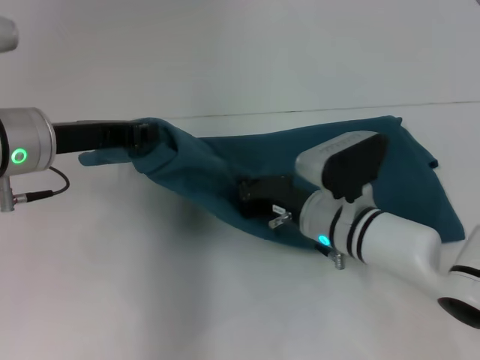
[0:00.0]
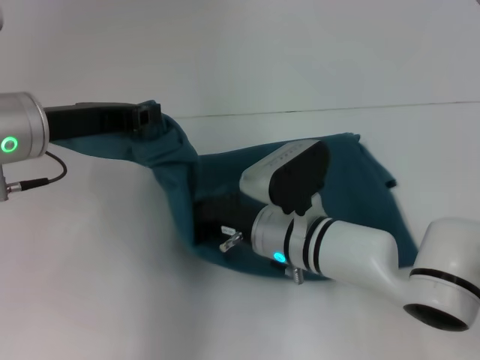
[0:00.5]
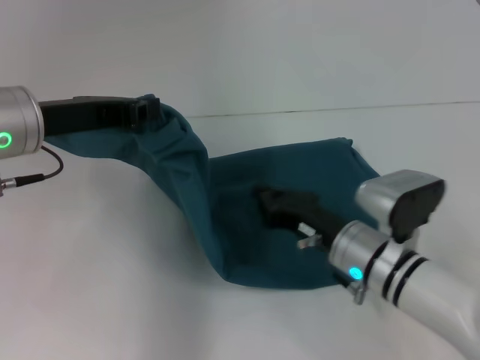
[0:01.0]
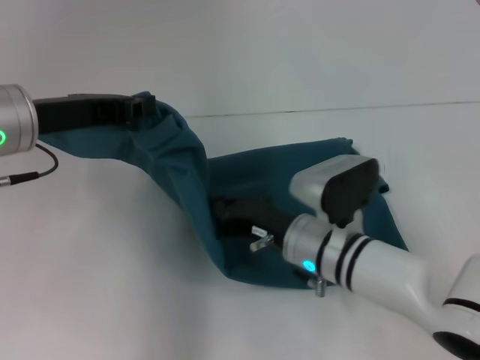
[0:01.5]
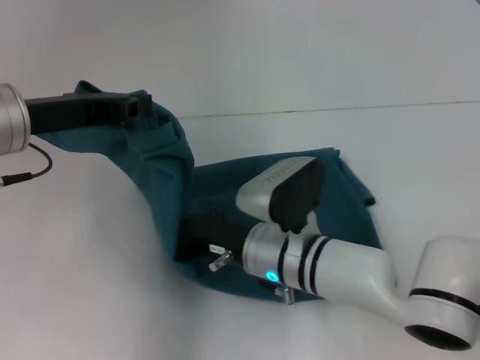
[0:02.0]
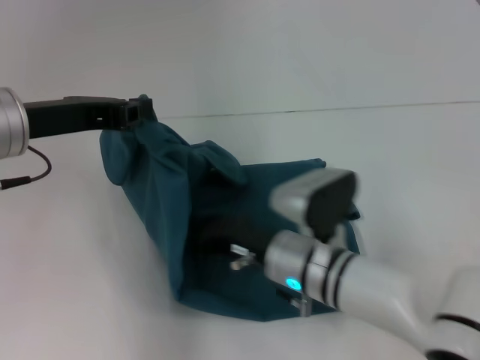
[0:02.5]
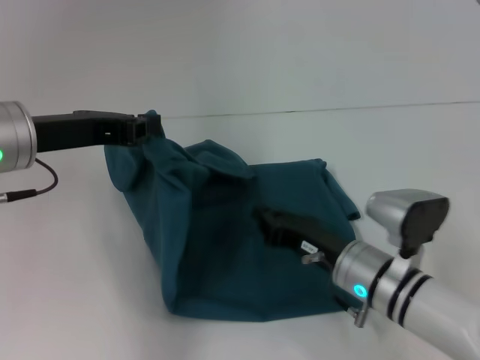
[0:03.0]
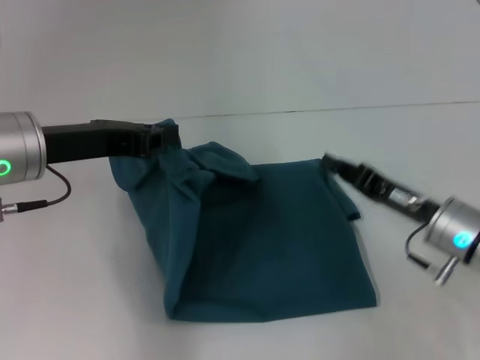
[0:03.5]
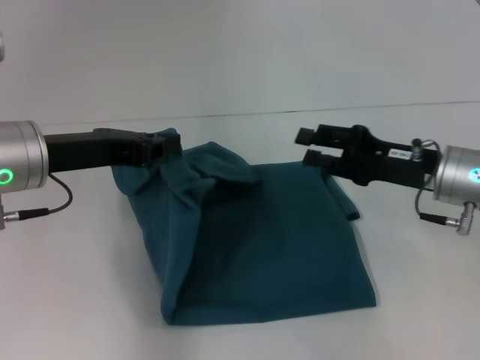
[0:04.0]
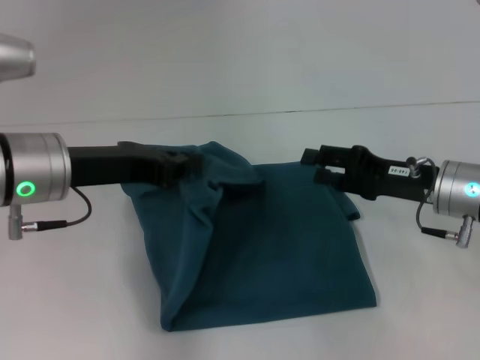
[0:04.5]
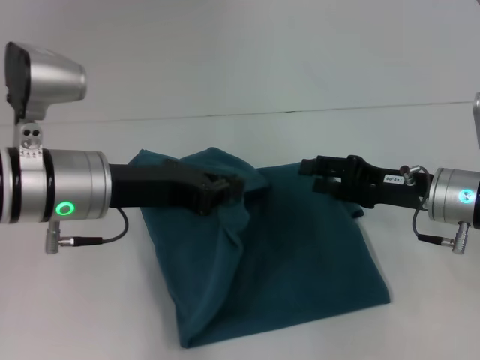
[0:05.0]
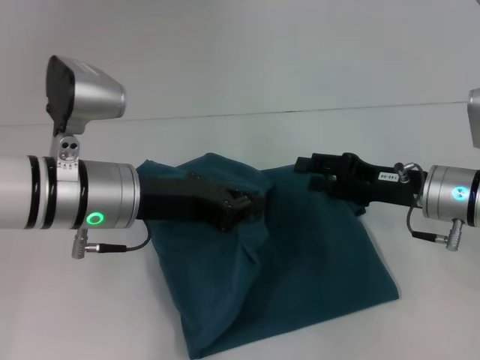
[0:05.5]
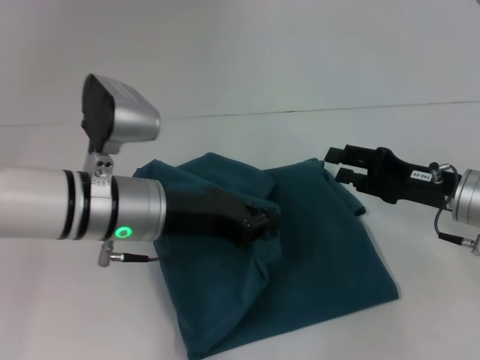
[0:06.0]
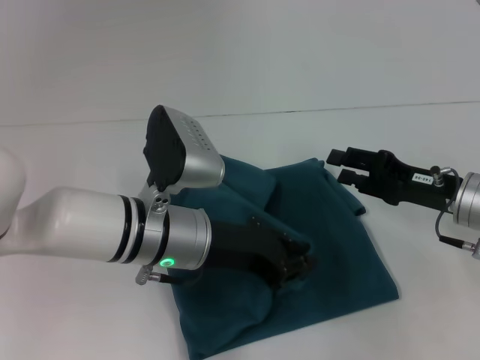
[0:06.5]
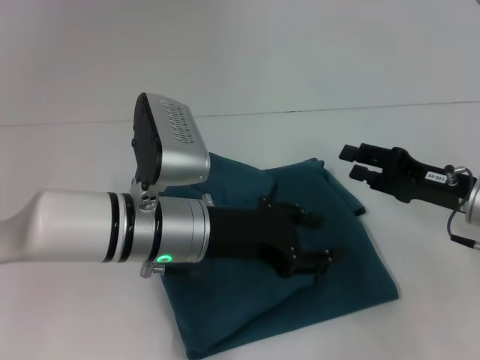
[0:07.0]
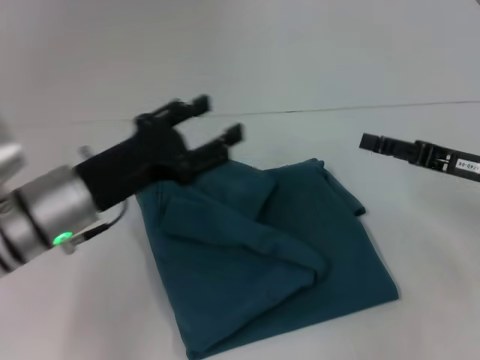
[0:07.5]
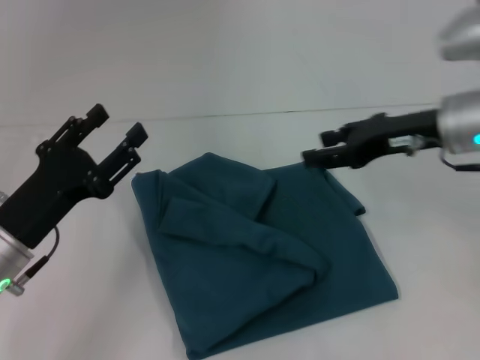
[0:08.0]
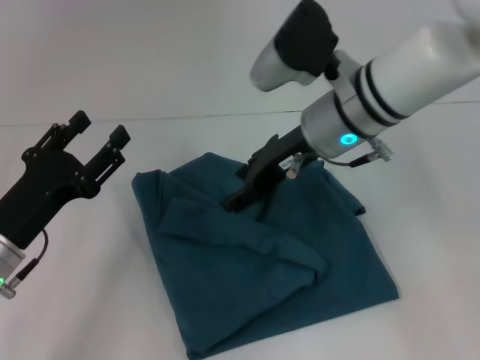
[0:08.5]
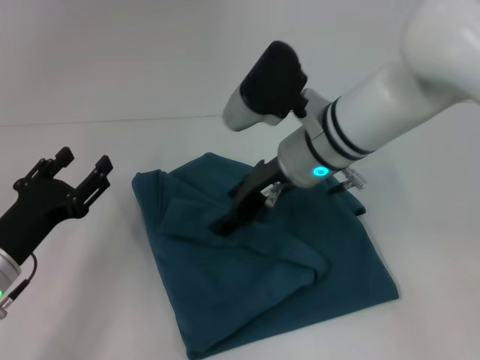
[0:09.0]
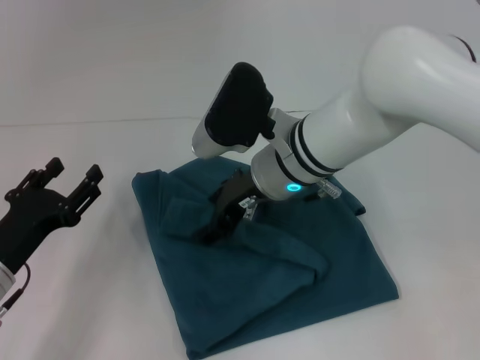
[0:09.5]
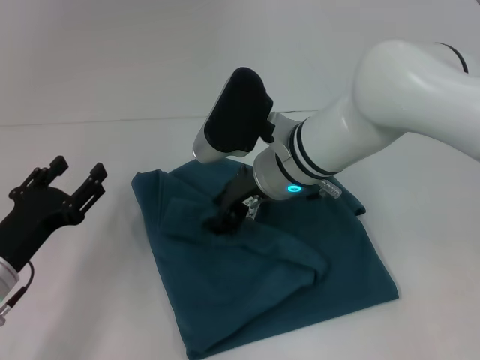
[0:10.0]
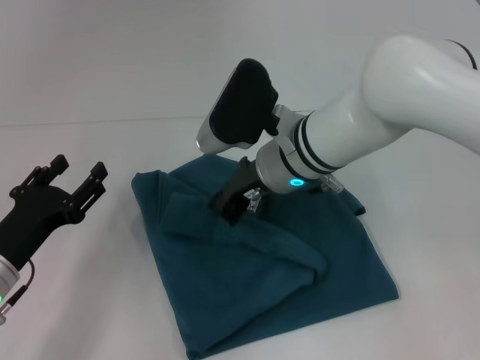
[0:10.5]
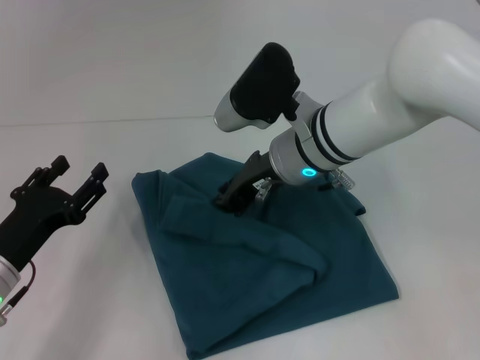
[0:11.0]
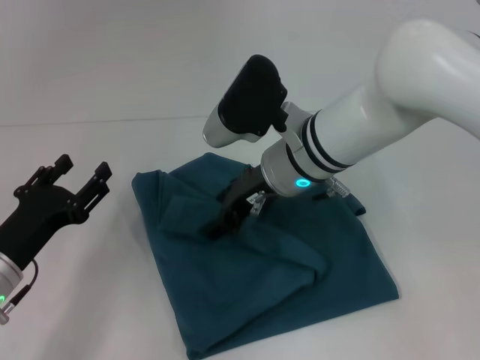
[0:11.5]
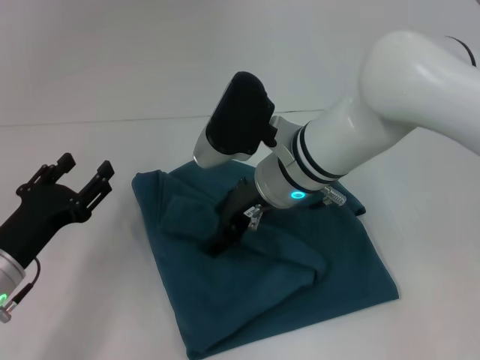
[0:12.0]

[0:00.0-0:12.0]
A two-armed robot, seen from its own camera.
Step, 0:00.0 to 0:06.5: Fold the clothes to the left.
0:00.0 to 0:02.0: The right gripper swings left and right, some 10 cm each way, with 2 reversals.
0:02.0 to 0:04.0: The right gripper shifts approximately 20 cm to the right.
0:04.0 to 0:06.0: The left gripper moves to the right and downward, some 10 cm.
0:06.0 to 0:08.0: The right gripper heads upward, covering some 10 cm. Meanwhile the left gripper goes approximately 15 cm to the left, backward and downward, and opens.
0:08.0 to 0:10.0: The right gripper shifts approximately 20 cm to the left.
0:10.0 to 0:12.0: The right gripper closes and opens again.

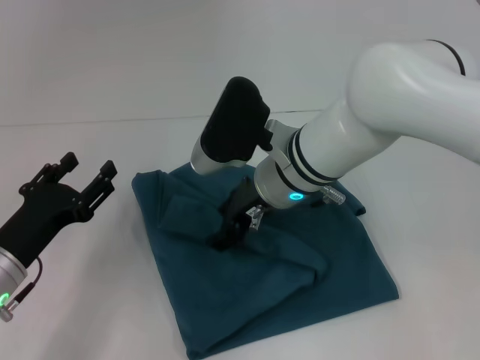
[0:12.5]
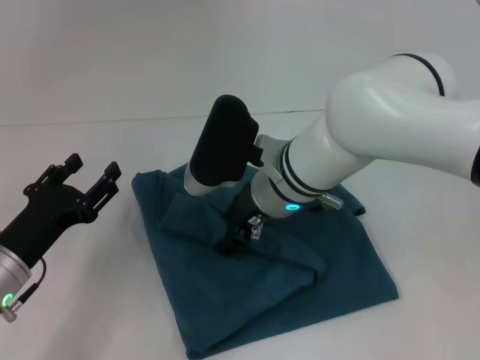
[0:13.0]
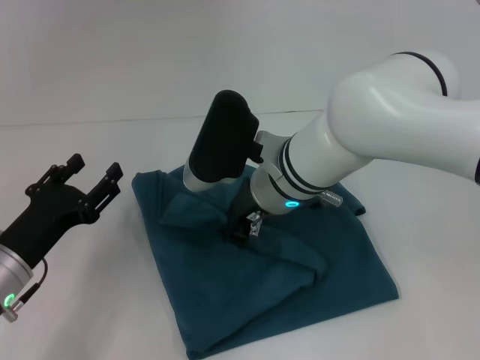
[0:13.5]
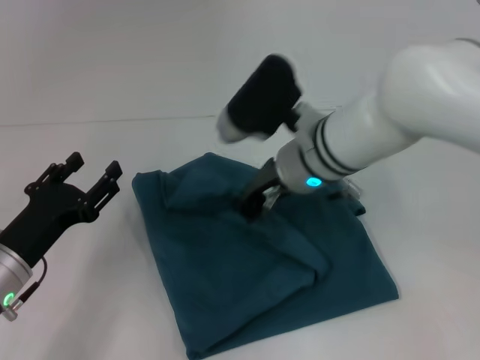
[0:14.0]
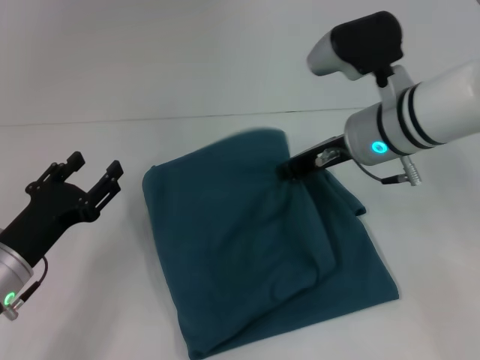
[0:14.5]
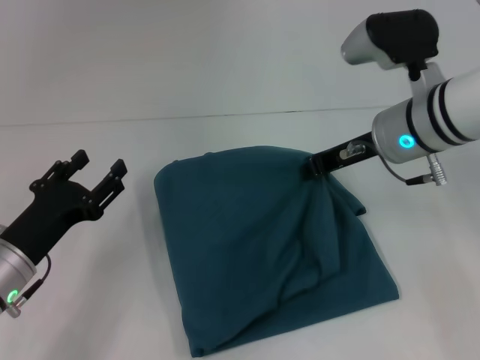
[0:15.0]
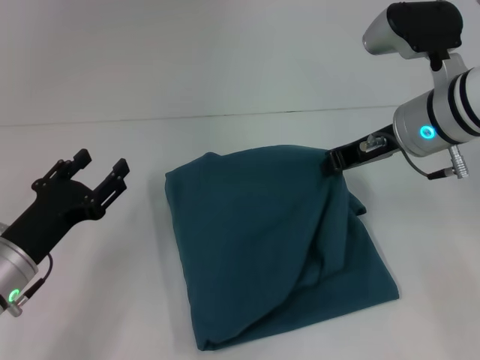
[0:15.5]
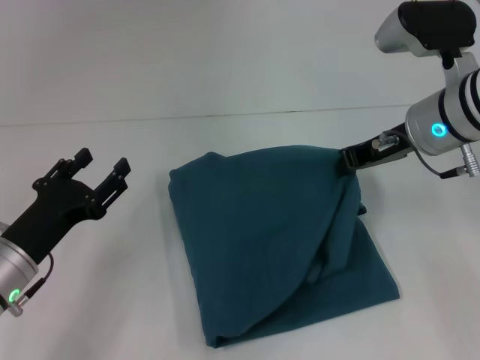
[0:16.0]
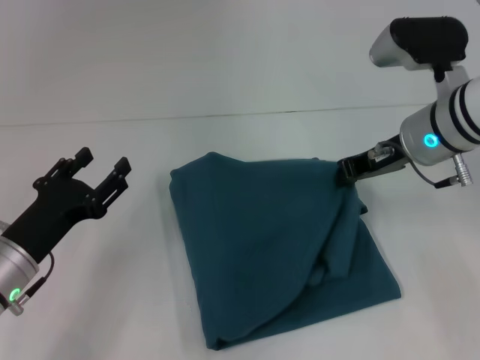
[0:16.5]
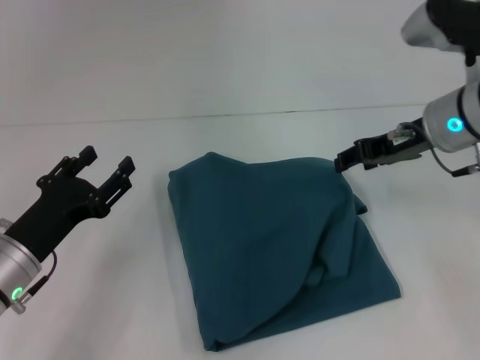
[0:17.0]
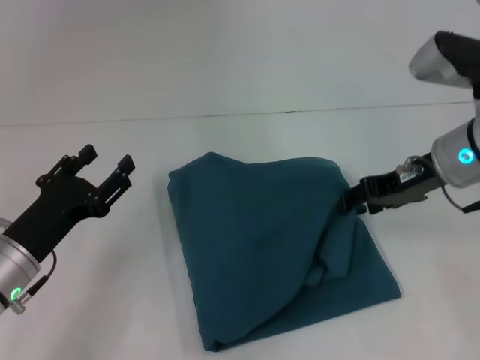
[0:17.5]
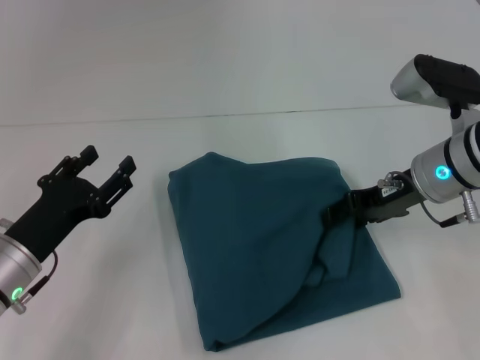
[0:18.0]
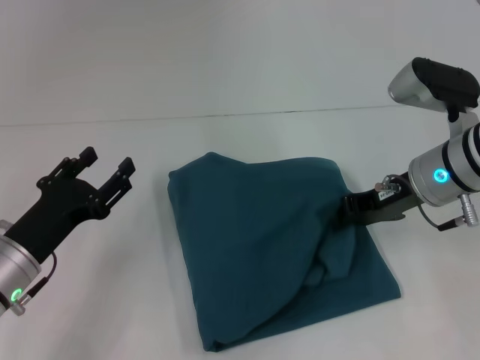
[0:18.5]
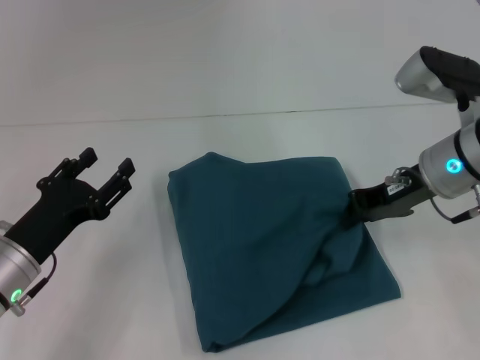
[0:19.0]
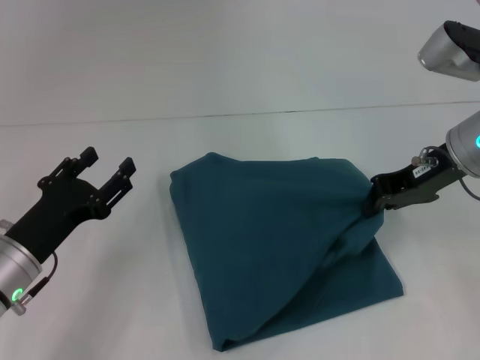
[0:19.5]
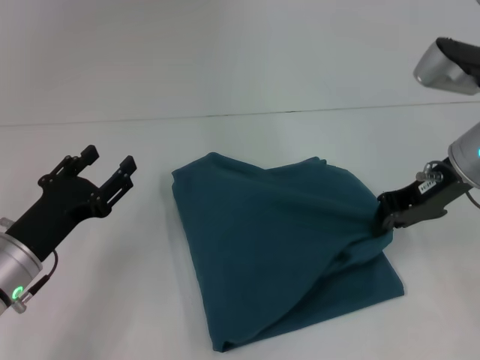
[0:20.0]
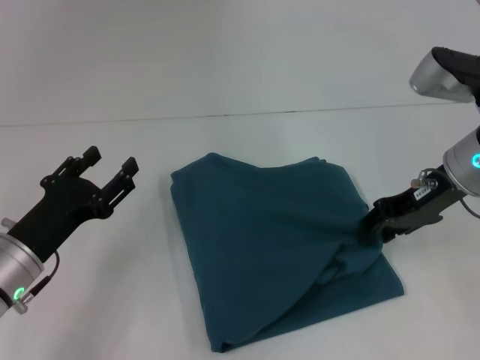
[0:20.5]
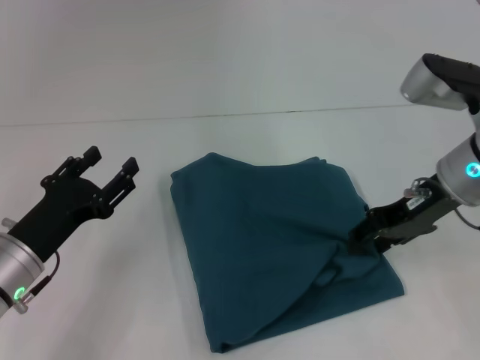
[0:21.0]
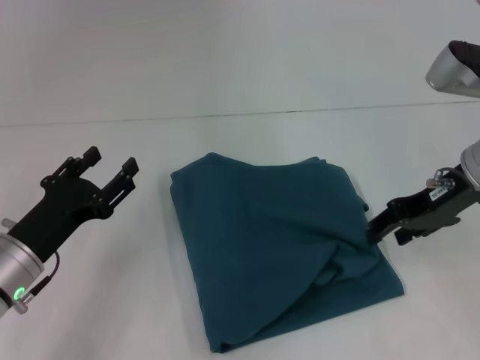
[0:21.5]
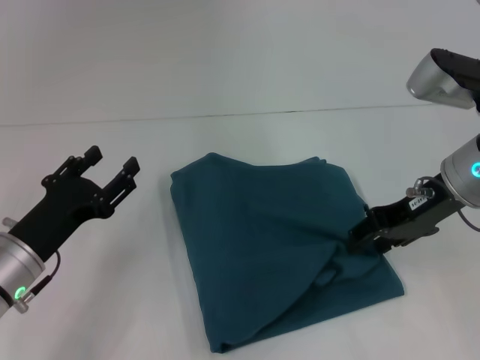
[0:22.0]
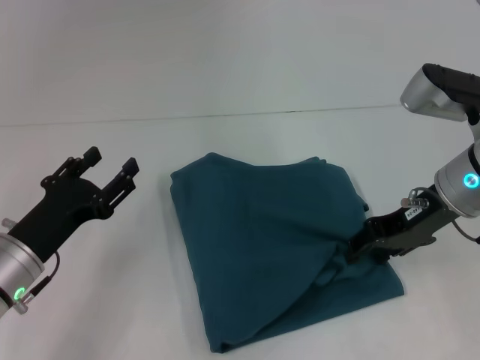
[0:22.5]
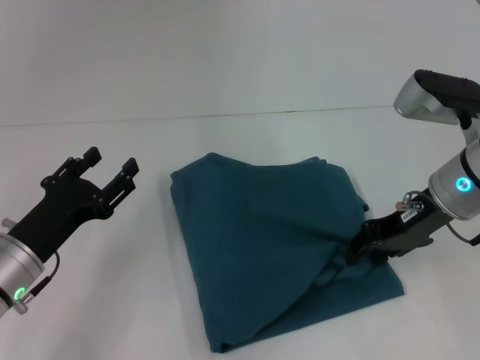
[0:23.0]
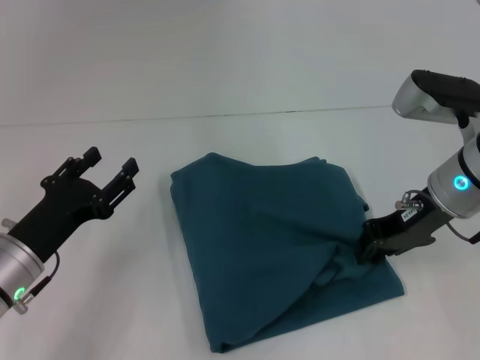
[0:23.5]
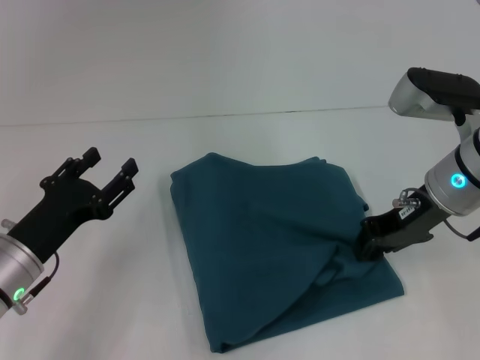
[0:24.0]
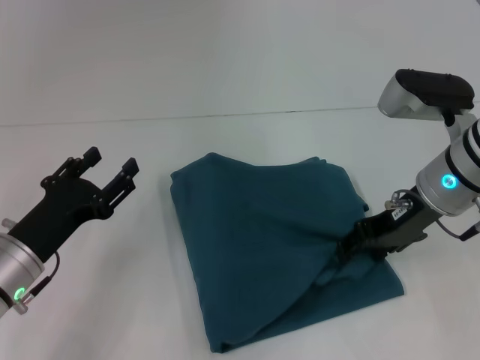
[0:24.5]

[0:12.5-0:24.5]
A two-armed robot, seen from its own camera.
0:12.5 to 0:14.5: The right gripper travels to the right by some 10 cm, and closes.
0:14.5 to 0:16.5: The right gripper heads to the right, covering some 5 cm.
0:16.5 to 0:18.5: The right gripper opens, then closes once more.
0:18.5 to 0:20.5: The grippers move only a little.
0:20.5 to 0:22.5: The right gripper opens its fingers.
0:22.5 to 0:24.5: There are only small adjustments of the grippers.

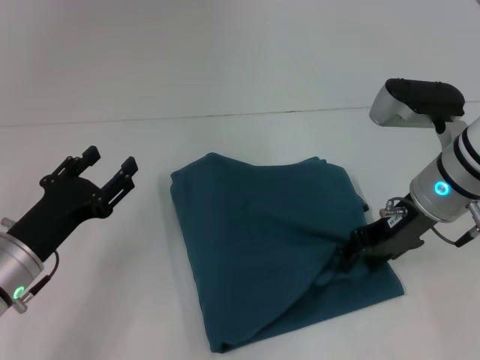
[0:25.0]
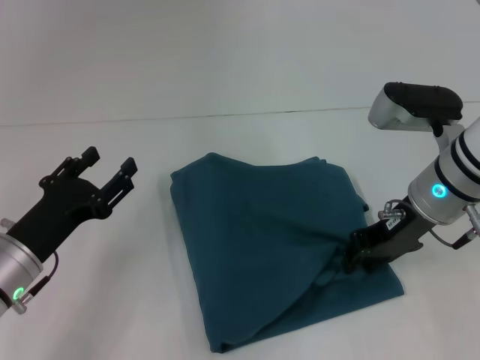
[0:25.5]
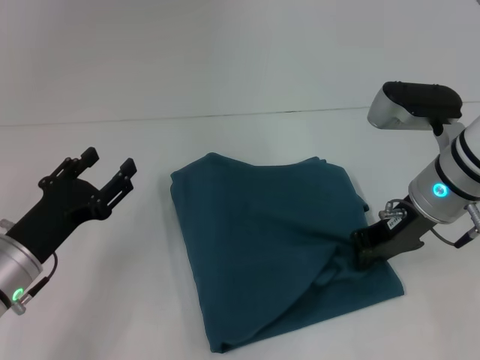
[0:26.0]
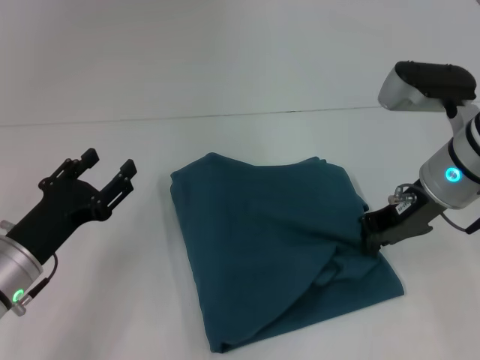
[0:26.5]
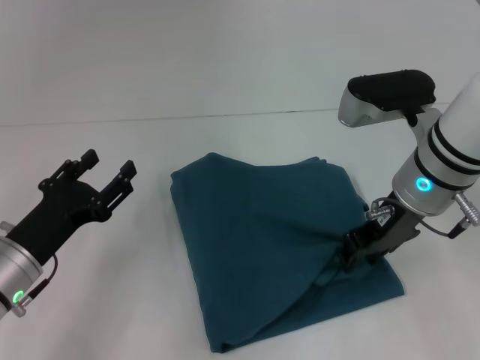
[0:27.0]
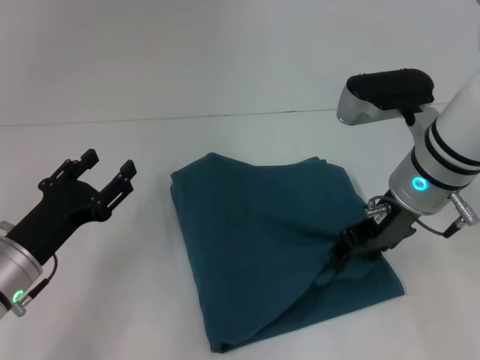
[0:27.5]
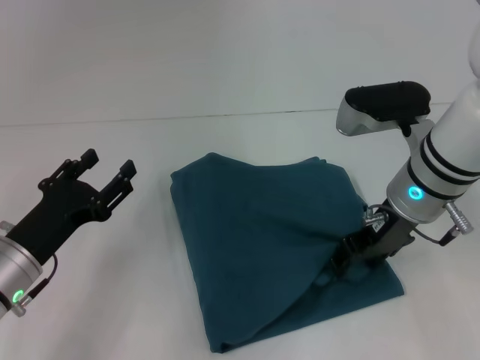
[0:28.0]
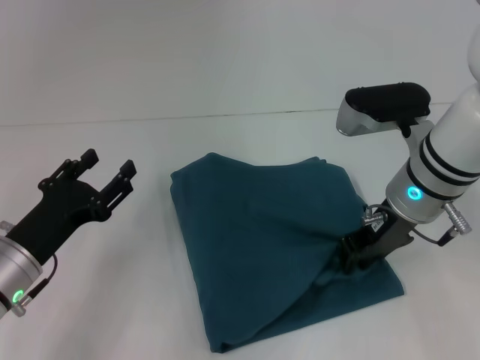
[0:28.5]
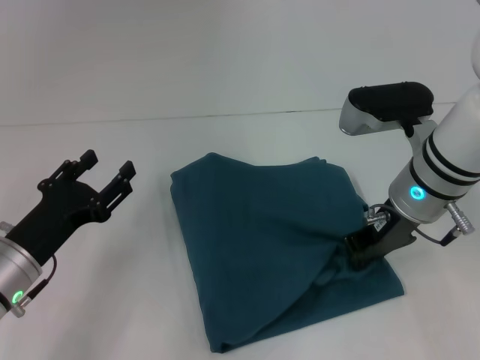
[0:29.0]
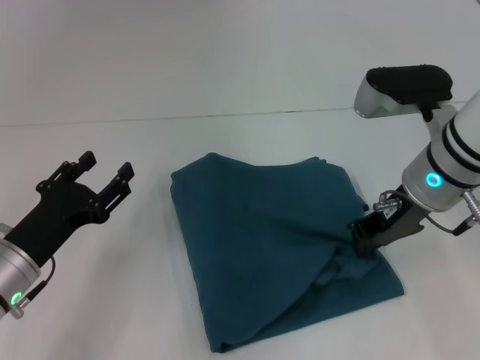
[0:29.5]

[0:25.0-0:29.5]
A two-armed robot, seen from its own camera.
0:25.0 to 0:27.0: The right gripper closes.
0:27.0 to 0:29.5: The right gripper opens, then closes again.
